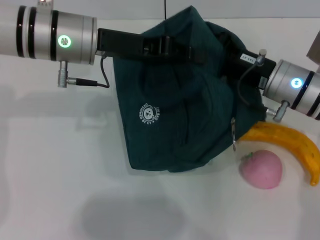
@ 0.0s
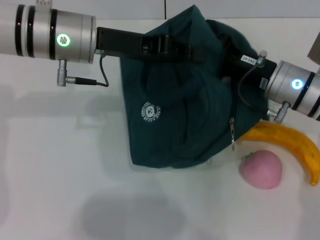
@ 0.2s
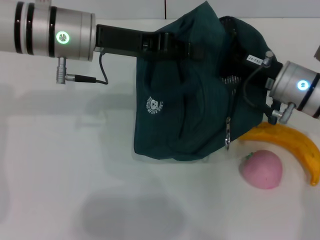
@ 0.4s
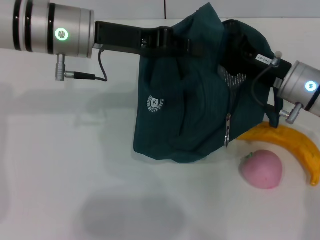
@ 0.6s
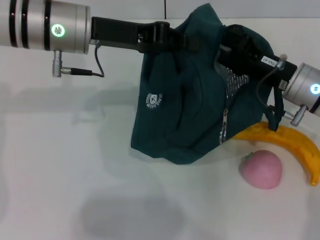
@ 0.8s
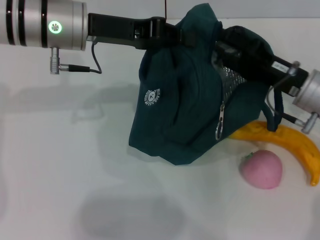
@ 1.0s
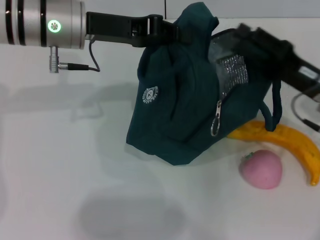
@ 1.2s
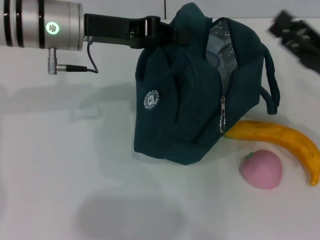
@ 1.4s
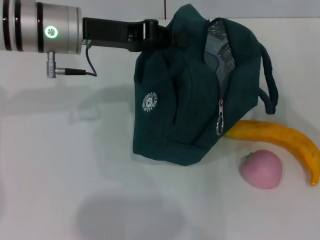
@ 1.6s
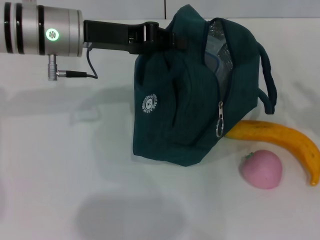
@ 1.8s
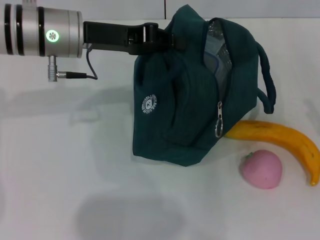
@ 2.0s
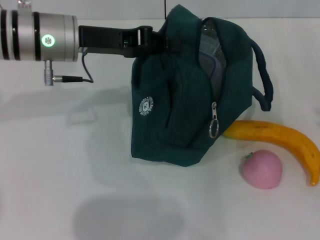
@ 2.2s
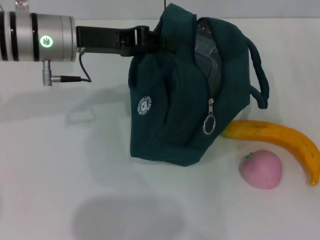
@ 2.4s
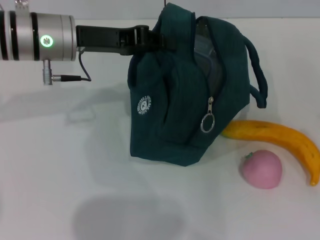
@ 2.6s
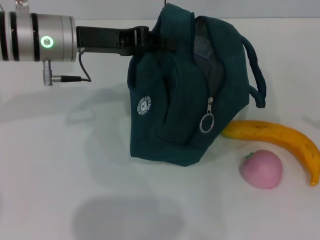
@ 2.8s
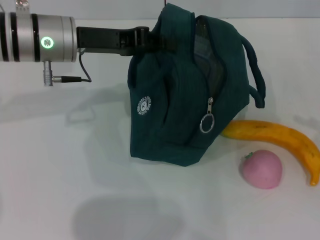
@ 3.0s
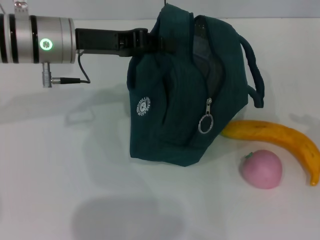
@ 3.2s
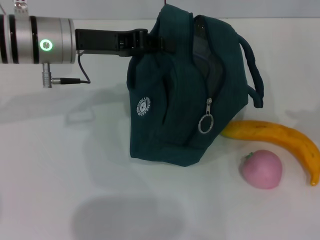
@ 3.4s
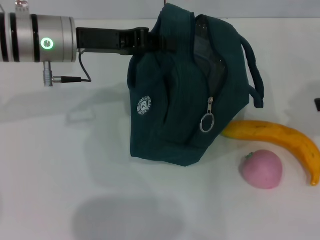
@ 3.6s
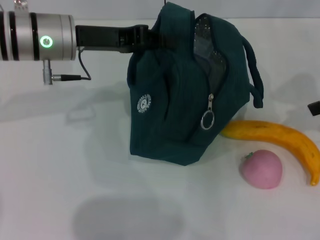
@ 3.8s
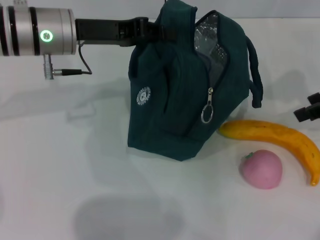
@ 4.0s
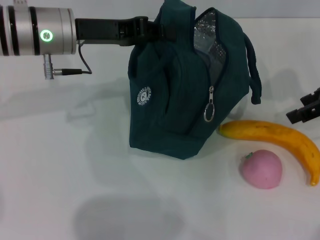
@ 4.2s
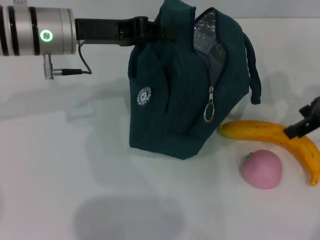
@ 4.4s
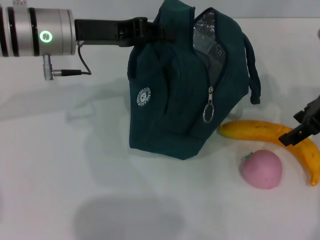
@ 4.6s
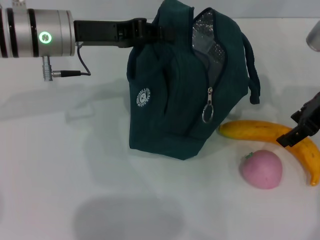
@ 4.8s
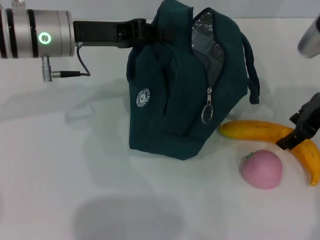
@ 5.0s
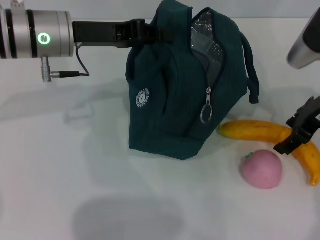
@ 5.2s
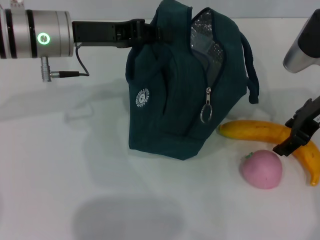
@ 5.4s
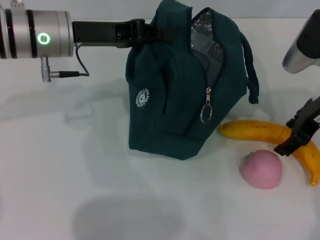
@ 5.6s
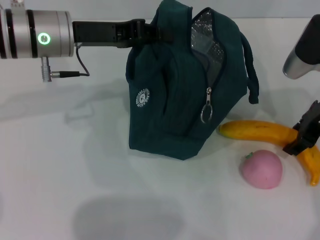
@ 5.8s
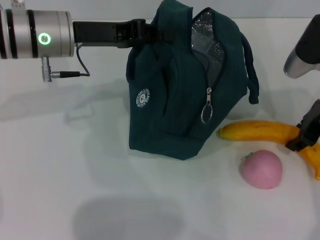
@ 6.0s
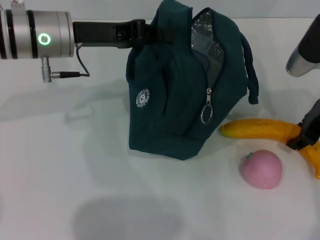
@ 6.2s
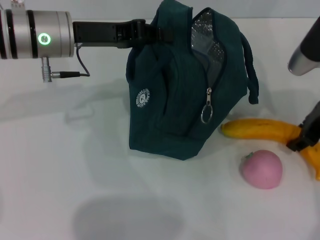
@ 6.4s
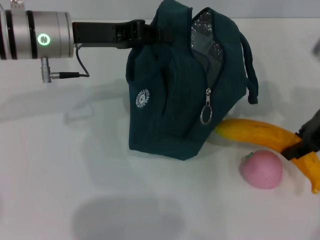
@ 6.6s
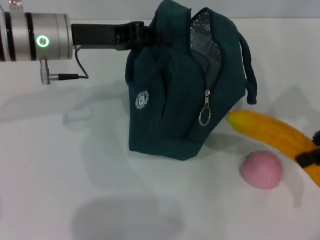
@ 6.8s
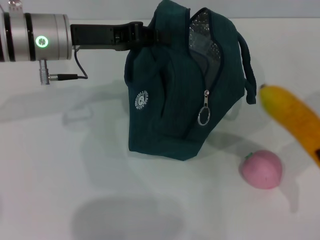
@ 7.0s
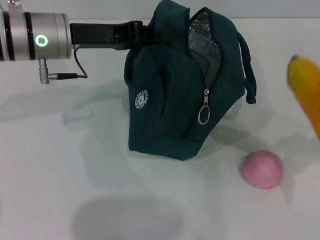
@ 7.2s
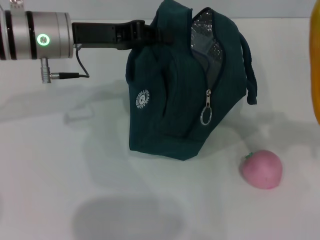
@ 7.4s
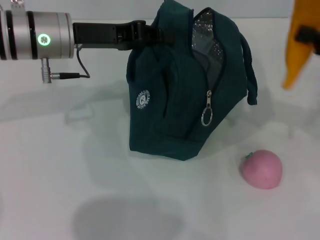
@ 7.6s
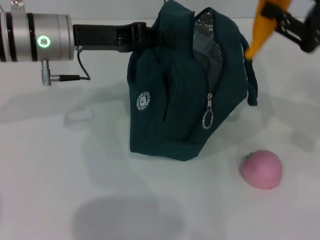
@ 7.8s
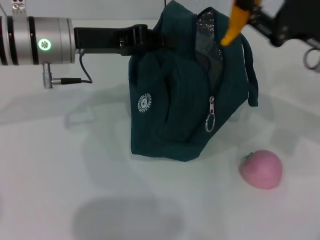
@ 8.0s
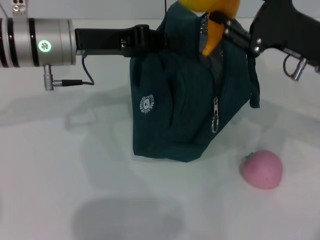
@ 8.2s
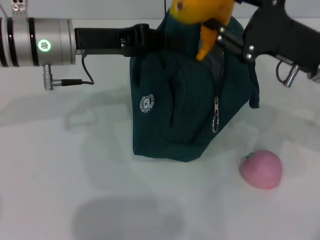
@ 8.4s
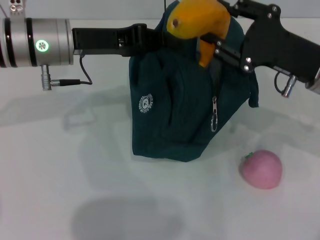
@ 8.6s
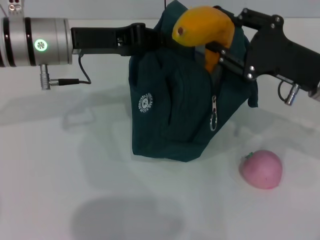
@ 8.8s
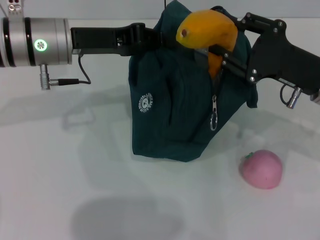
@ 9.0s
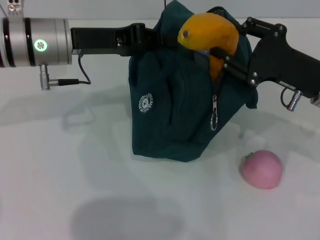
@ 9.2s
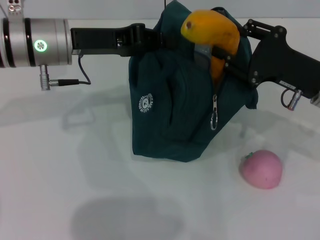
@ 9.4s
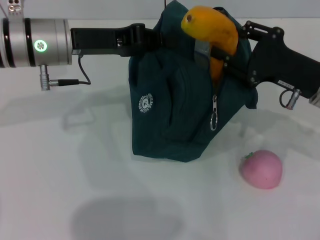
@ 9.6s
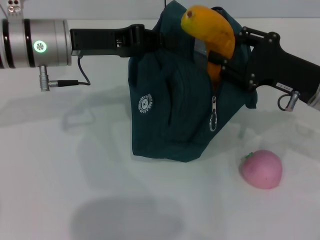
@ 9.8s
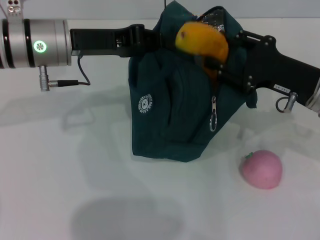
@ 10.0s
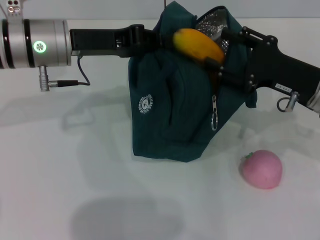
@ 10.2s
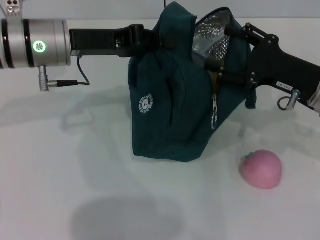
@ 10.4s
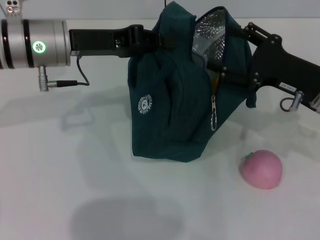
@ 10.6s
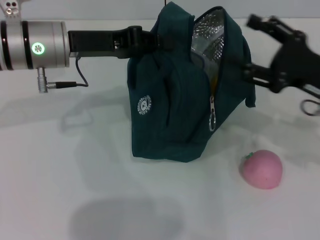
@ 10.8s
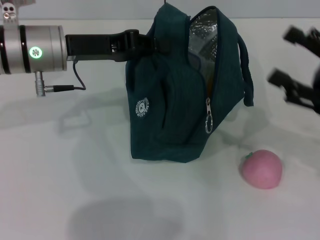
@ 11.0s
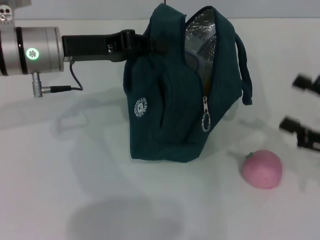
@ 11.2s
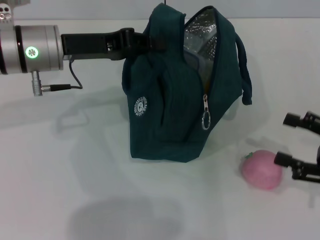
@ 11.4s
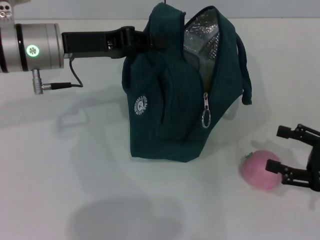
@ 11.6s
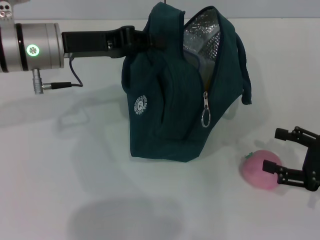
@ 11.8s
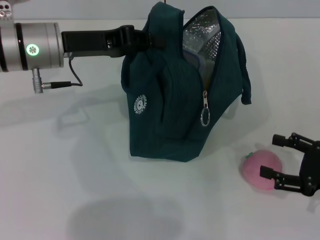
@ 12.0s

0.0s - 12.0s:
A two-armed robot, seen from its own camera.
Step, 1.2s - 6.2s: Take the banana with your right hand.
Step, 6.4s - 10.4s: Put the banana into the lunch bag with your right hand.
0.0s - 1.6s: The right gripper moves to the right and backward, approximately 15 cm, and opens up.
1.6s - 3.0s: The right gripper shifts approximately 10 cm to the right, backward and upward.
3.0s - 4.4s: The right gripper goes roughly 20 cm forward and to the left.
4.4s - 6.0s: The right gripper ends up roughly 5 cm from where it was.
6.0s - 7.6s: The right gripper is displaced to the right by about 10 cm.
7.6s - 9.0s: The right gripper moves to the left and downward, about 10 cm.
10.4s - 12.0s: The right gripper moves backward, to the right and downward, approximately 15 cm.

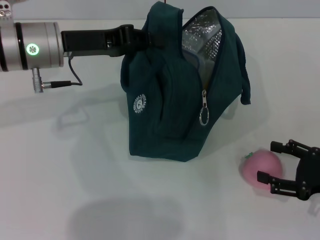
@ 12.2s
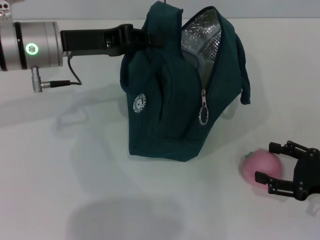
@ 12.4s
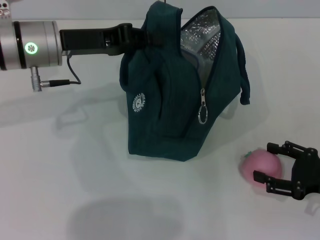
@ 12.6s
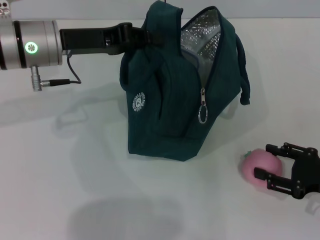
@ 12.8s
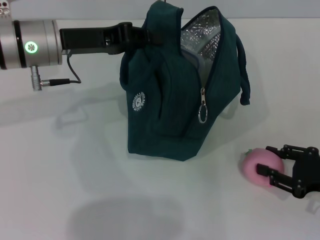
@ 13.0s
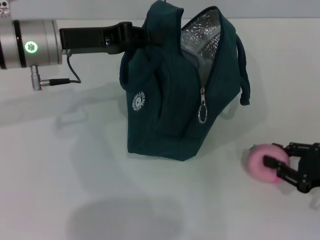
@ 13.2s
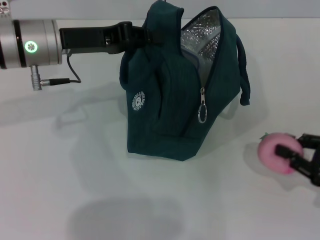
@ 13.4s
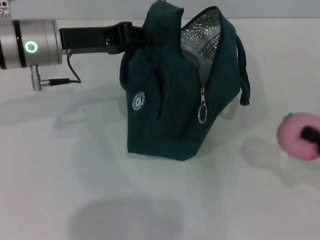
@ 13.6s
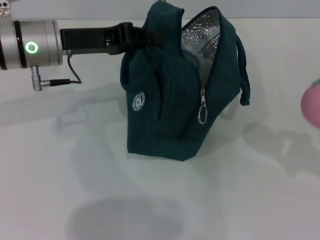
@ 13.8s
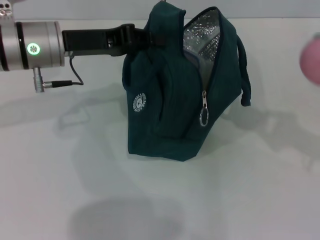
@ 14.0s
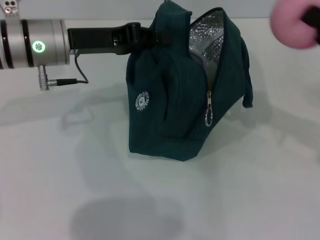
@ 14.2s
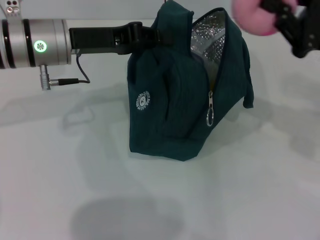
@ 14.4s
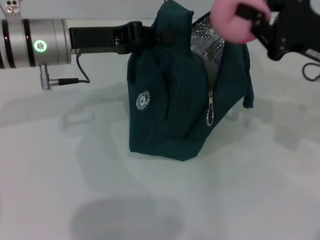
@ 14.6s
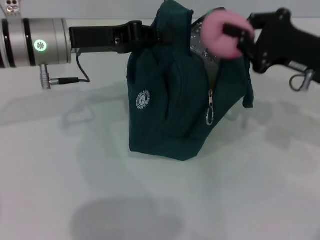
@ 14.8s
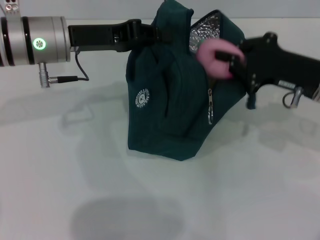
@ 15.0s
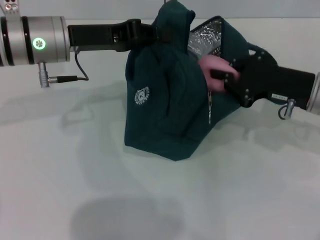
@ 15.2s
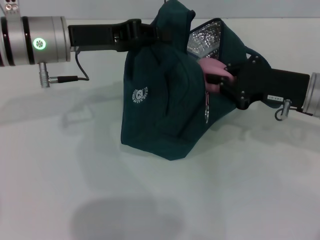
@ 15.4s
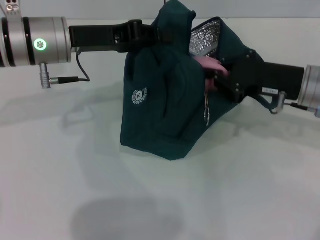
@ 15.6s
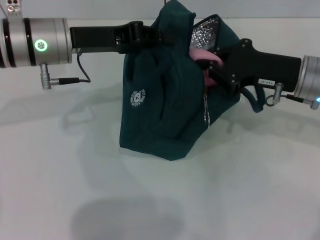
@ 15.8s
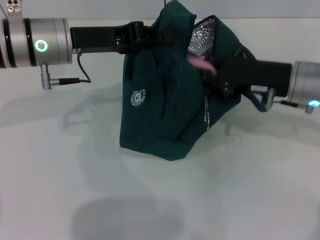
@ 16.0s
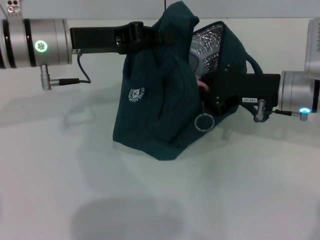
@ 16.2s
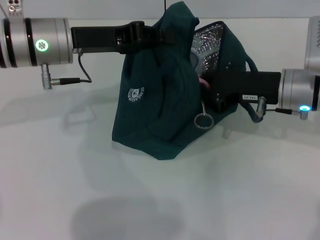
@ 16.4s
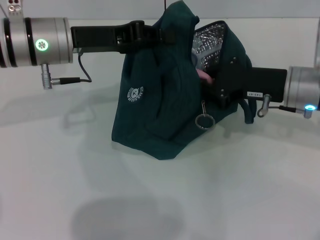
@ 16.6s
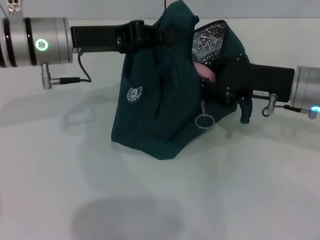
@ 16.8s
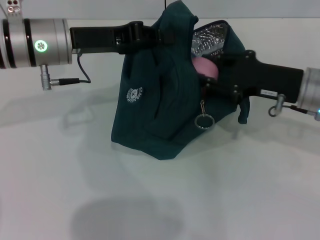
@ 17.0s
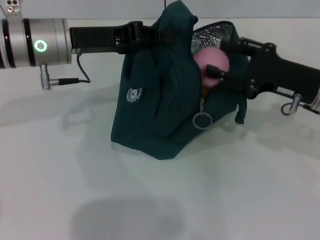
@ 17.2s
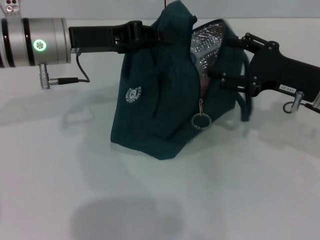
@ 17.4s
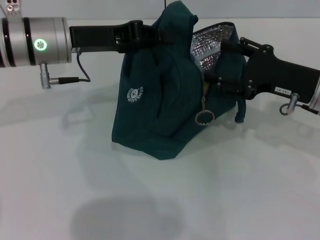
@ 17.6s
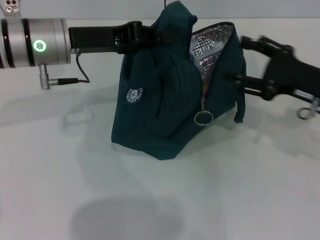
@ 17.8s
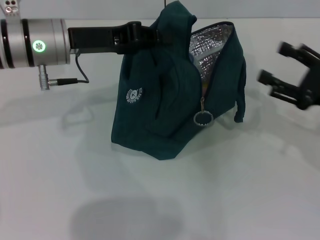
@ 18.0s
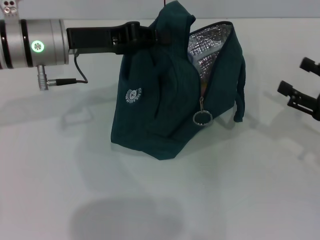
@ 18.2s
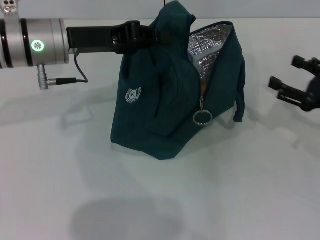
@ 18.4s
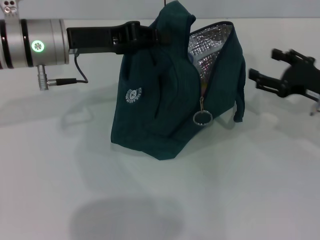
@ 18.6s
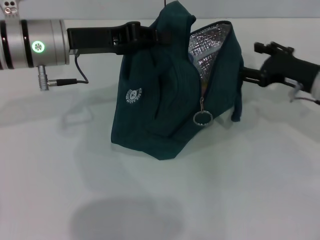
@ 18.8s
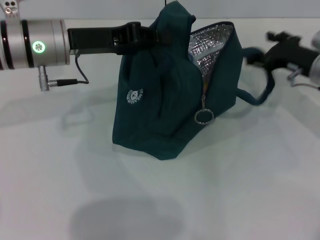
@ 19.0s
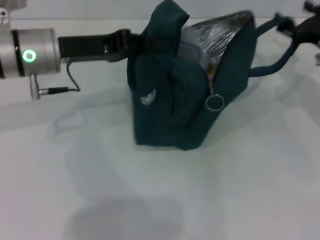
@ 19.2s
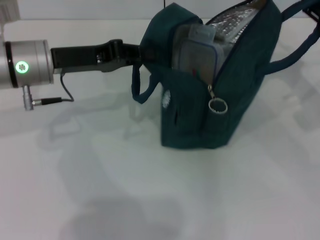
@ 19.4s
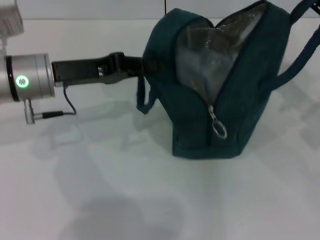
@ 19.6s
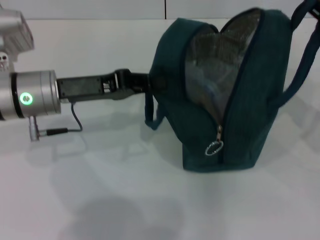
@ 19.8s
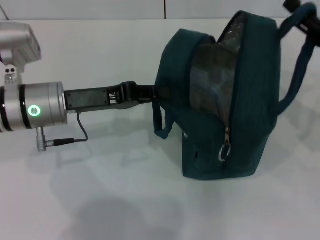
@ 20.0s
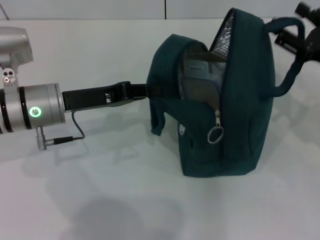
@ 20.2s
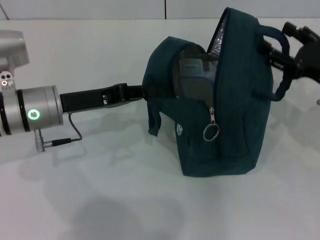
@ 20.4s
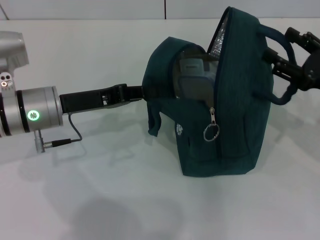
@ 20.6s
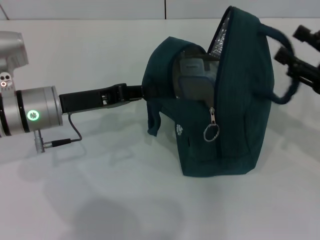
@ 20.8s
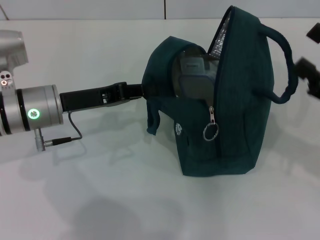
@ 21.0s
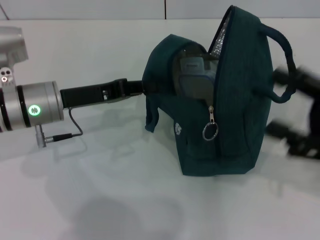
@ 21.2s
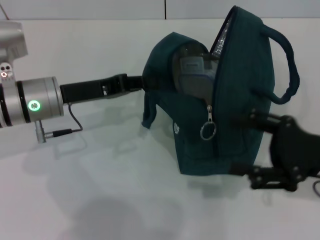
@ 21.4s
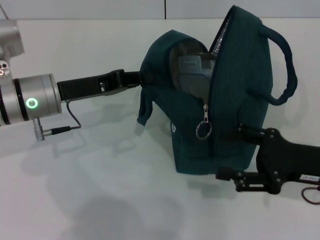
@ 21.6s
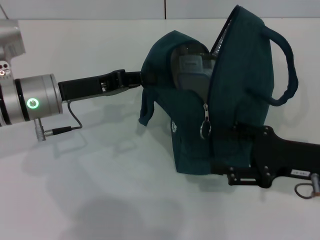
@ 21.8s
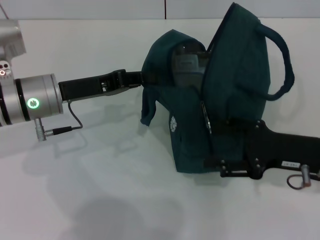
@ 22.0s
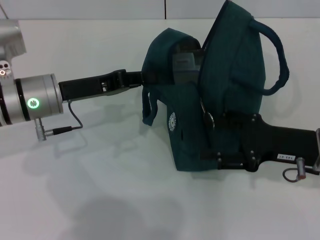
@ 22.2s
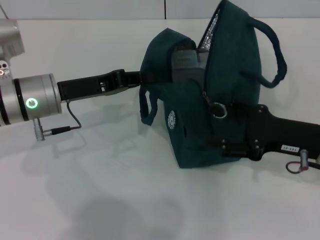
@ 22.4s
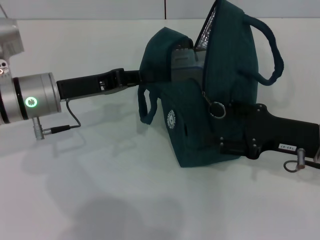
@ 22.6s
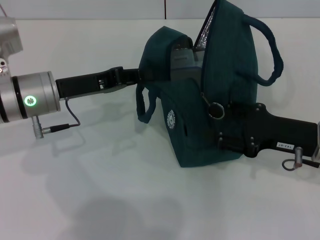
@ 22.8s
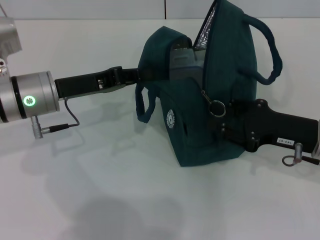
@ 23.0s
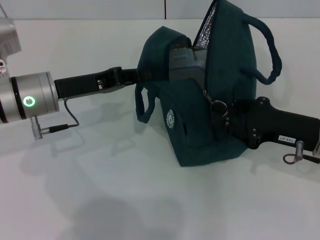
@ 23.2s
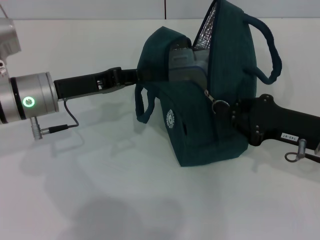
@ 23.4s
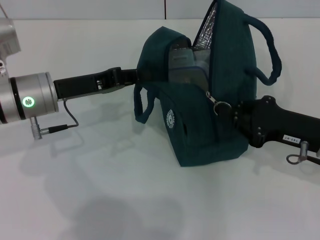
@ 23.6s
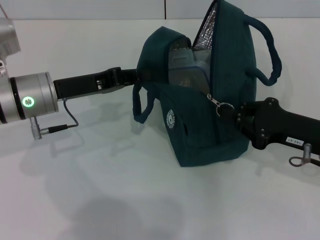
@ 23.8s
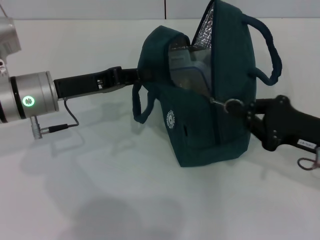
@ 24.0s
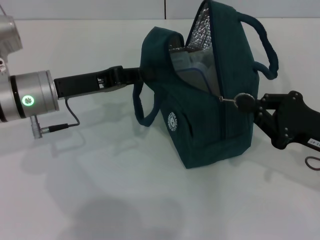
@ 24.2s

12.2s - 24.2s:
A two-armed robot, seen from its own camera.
Step, 17.4s - 20.4s: Hold the lunch bag with your right hand.
12.2s - 13.8s: The right gripper moves upward, some 5 cm, and closes its fingers.
13.8s - 15.2s: The right gripper goes some 20 cm forward and to the left.
15.2s - 16.6s: There are only small adjustments of the grippers.
16.6s - 18.2s: The right gripper shifts some 15 cm to the right and backward, and opens.
18.2s - 19.8s: The left gripper ends up approximately 5 cm from where it was. The right gripper shifts approximately 5 cm upward.
19.8s - 21.2s: The right gripper goes approximately 10 cm backward.
21.2s - 22.6s: The right gripper changes place by roughly 10 cm.
22.6s - 24.2s: The right gripper closes its fingers.
